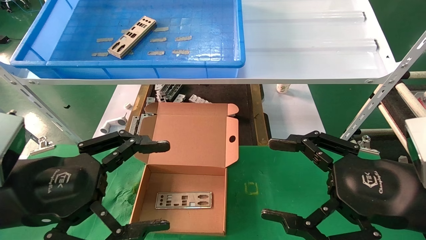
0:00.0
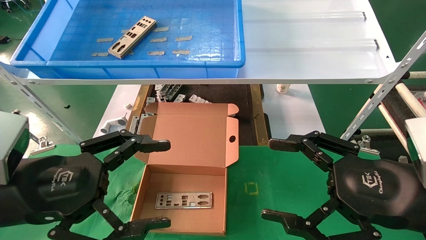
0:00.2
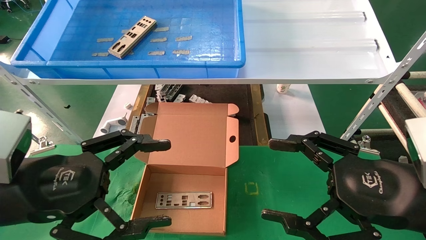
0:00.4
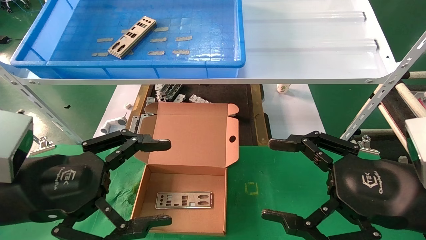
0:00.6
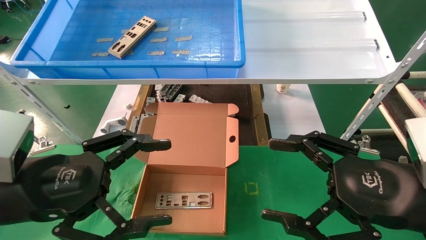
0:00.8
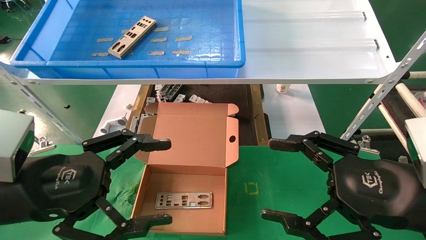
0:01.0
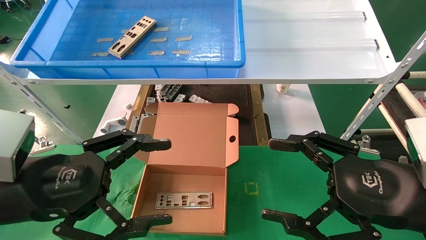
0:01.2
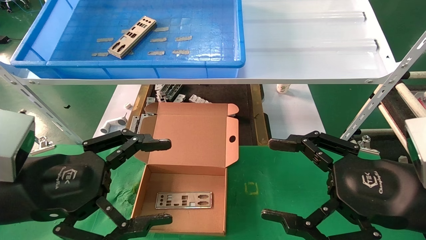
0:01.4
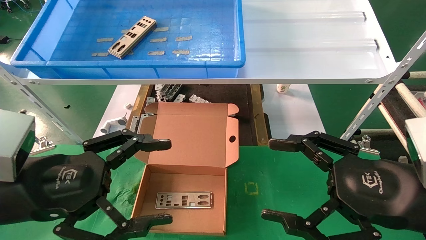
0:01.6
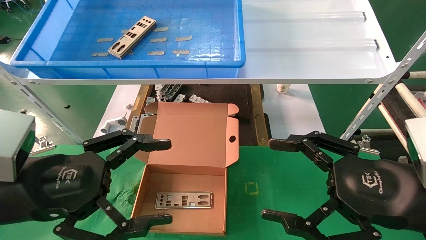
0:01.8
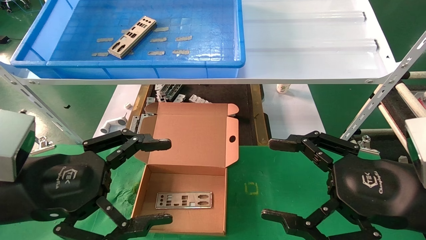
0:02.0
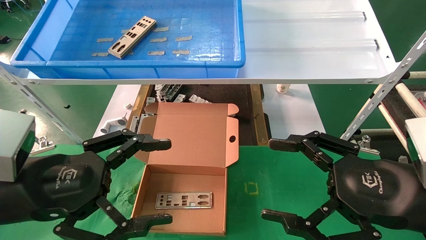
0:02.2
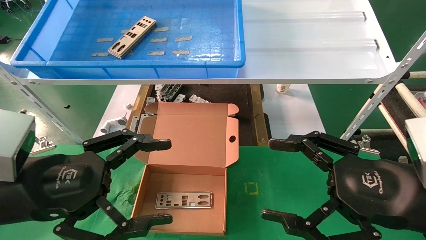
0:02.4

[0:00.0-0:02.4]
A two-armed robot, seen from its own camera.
Task of the whole recording: pick up the parts on the tray and put them in the cardboard box.
0:00.0 to 0:02.4: The two grippers keep their place.
